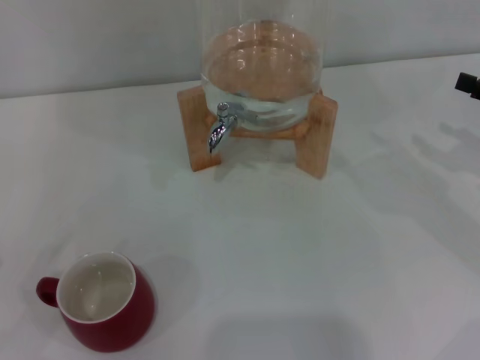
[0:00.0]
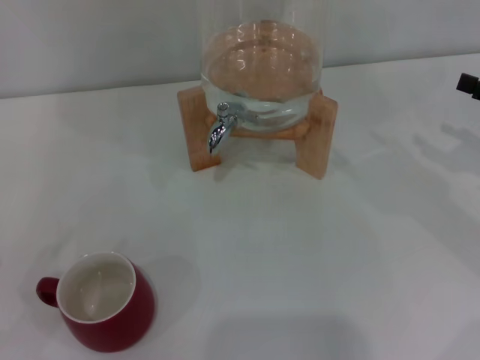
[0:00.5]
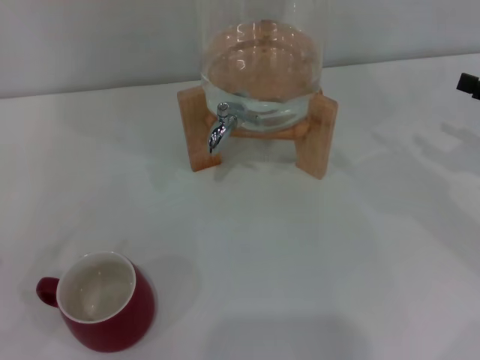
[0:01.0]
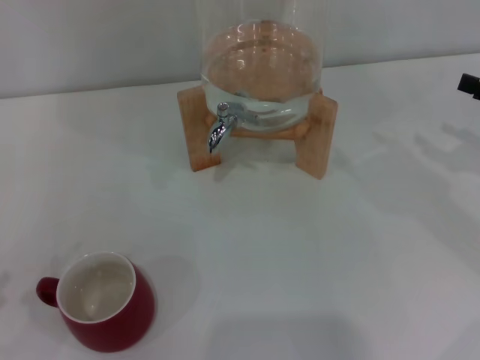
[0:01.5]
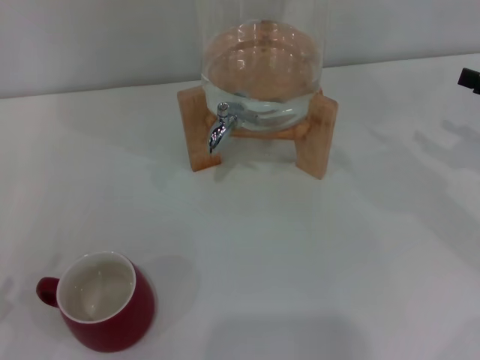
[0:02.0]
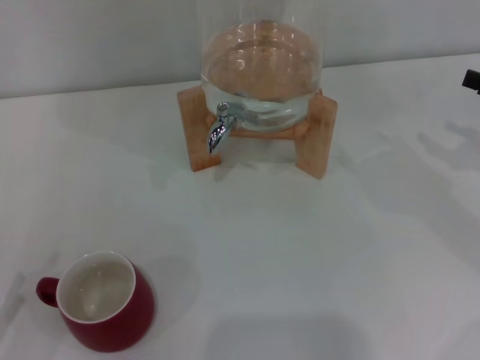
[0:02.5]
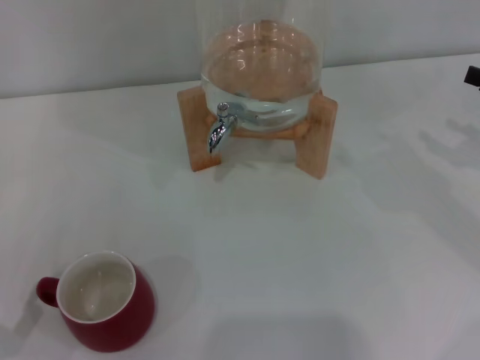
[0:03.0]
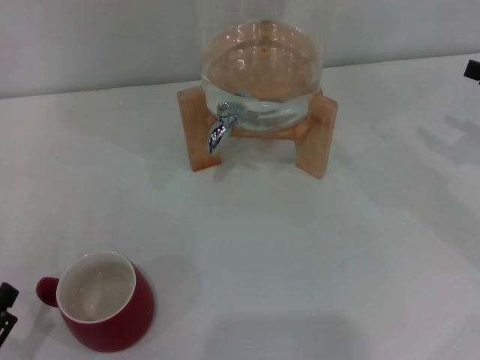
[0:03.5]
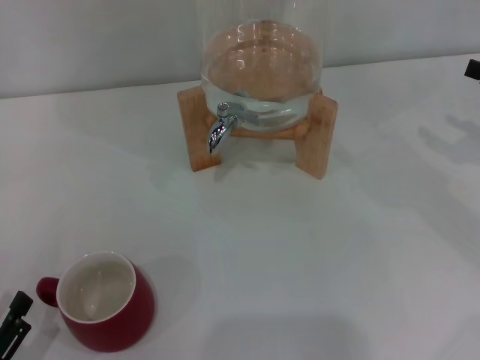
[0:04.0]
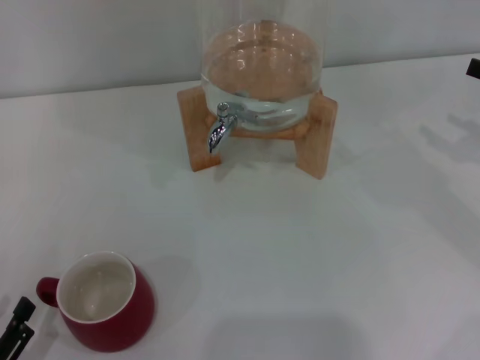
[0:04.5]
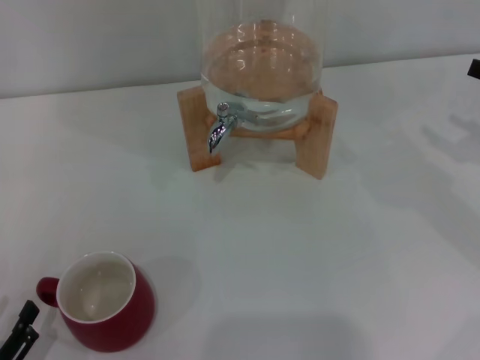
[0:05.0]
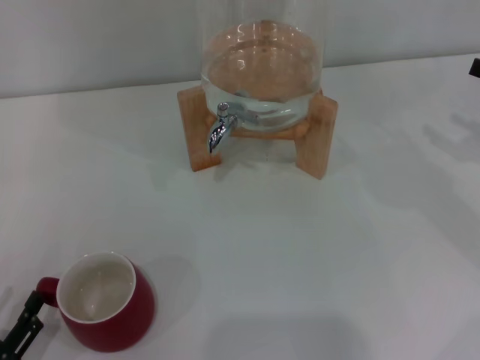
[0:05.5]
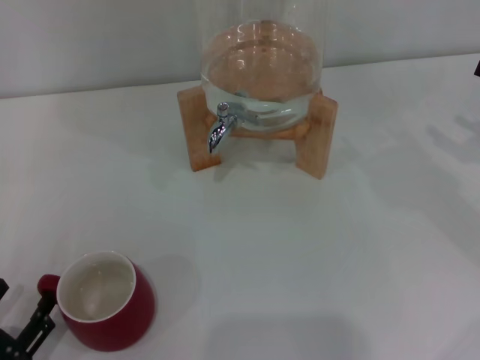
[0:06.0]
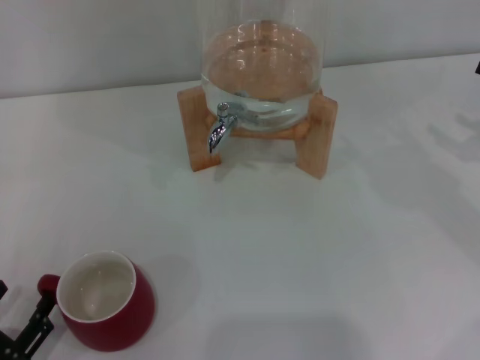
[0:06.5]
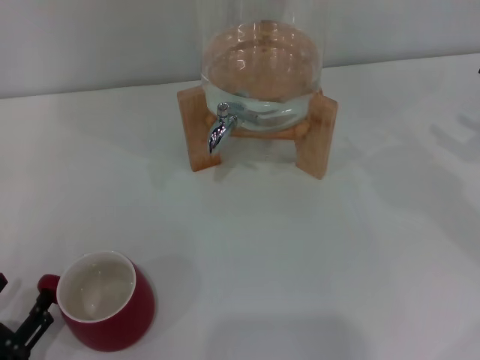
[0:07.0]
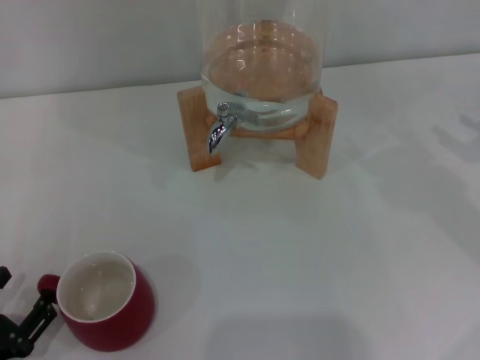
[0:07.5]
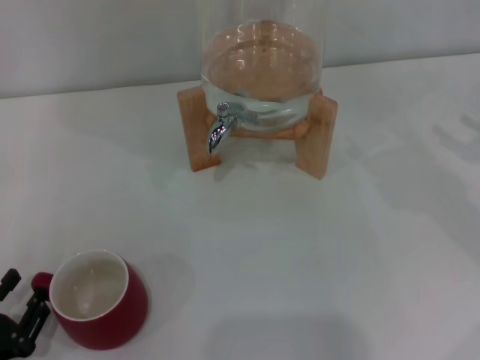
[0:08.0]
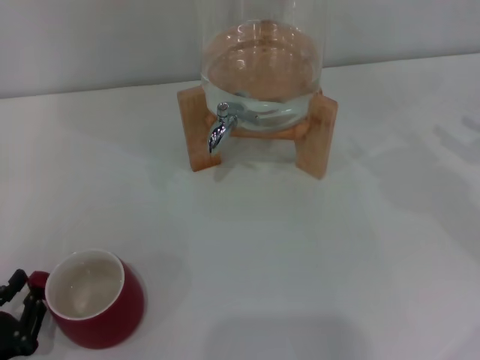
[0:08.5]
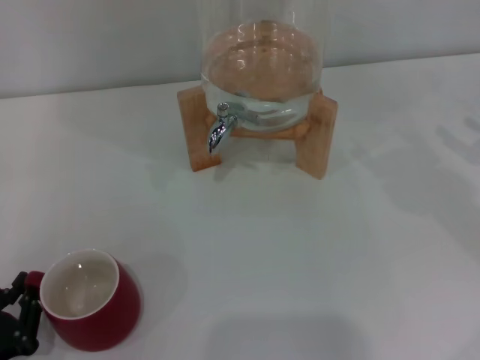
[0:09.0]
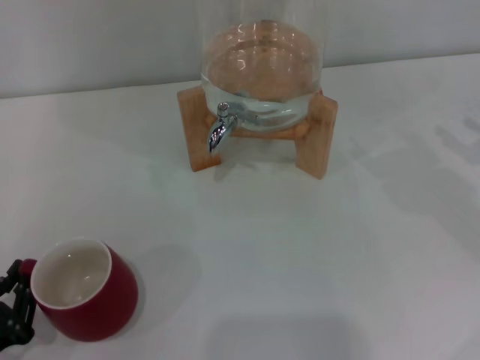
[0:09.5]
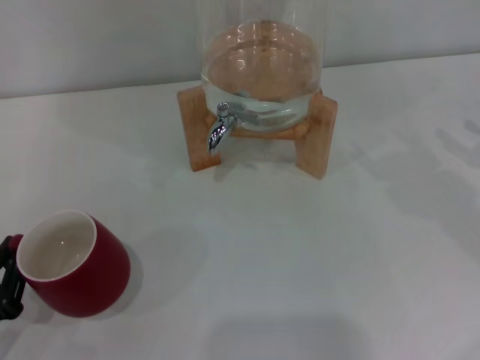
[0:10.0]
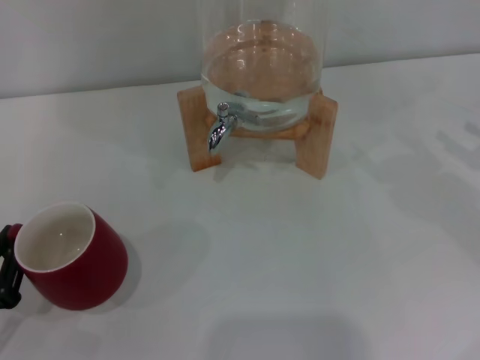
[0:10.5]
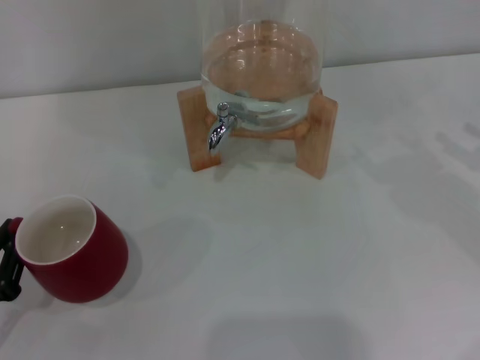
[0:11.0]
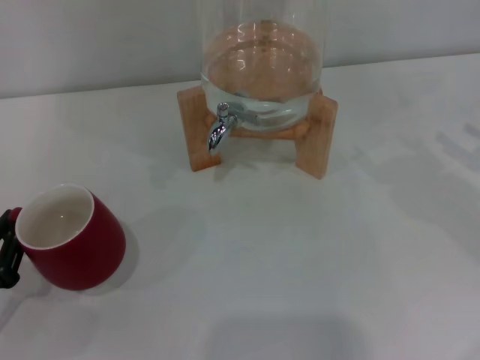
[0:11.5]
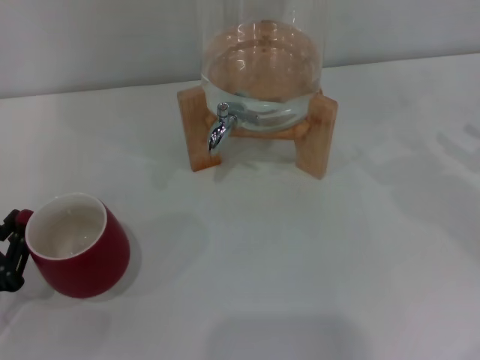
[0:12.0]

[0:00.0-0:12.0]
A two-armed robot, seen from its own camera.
Task of the whole recording: the left gripper pick up the red cup and place it horizontally under the faucet, the right gripper turn on the faucet to fill the cup, and then turn off the faucet.
0:02.0 to 0:04.0: The left gripper moves to the right, about 5 cm.
0:04.0 to 0:08.0: The grippers move only a little.
0:08.0 to 0:10.0: The left gripper closes its fingers.
0:10.0 to 0:12.0: The grippers stay close to where they were, moving slightly.

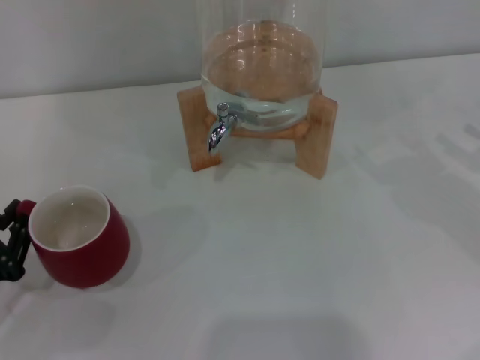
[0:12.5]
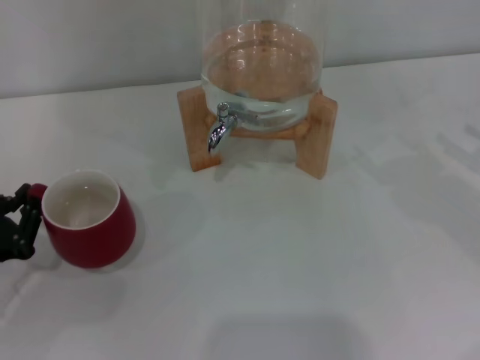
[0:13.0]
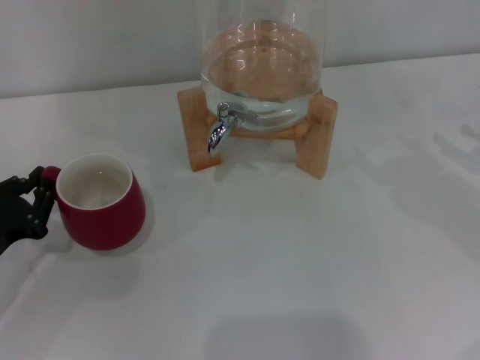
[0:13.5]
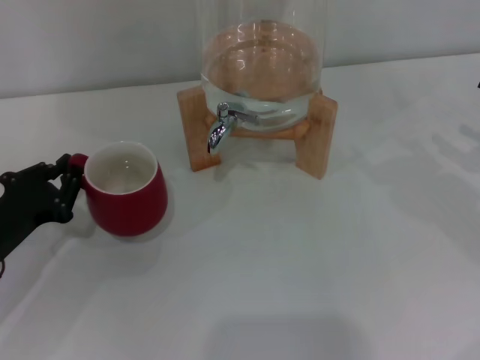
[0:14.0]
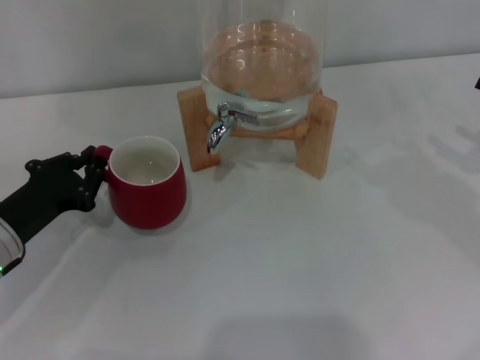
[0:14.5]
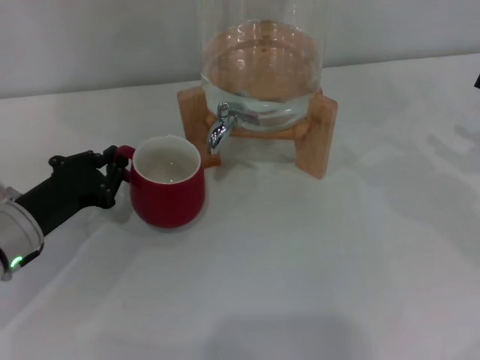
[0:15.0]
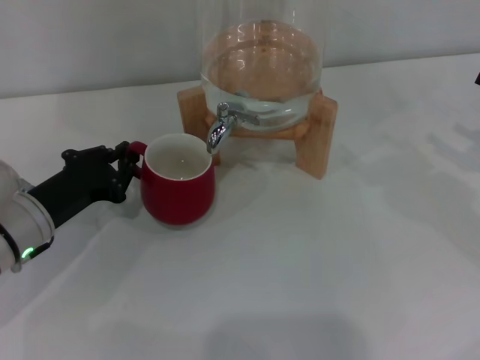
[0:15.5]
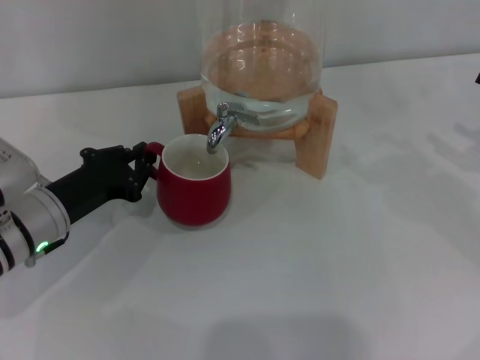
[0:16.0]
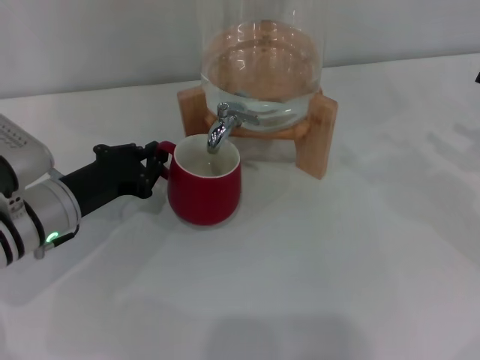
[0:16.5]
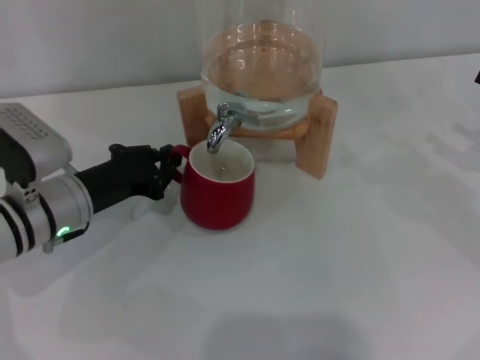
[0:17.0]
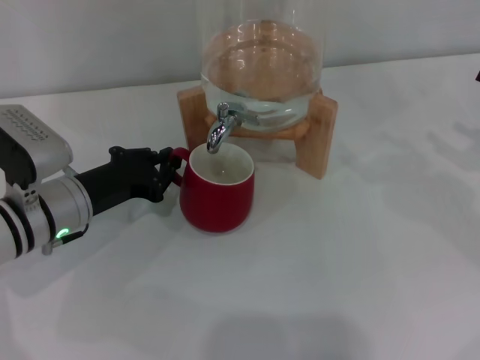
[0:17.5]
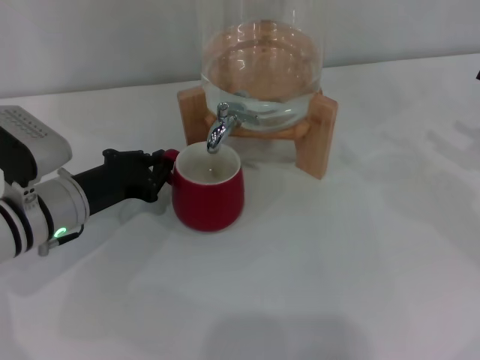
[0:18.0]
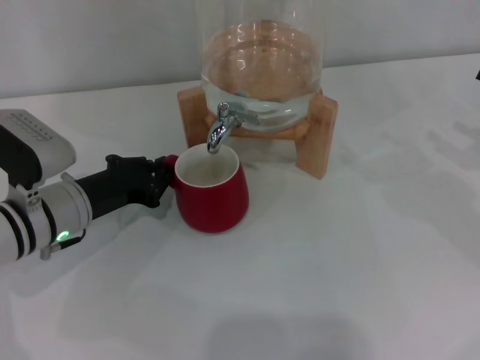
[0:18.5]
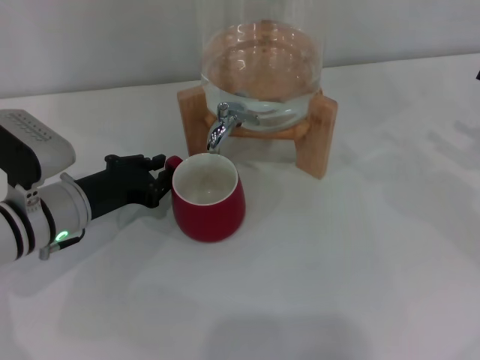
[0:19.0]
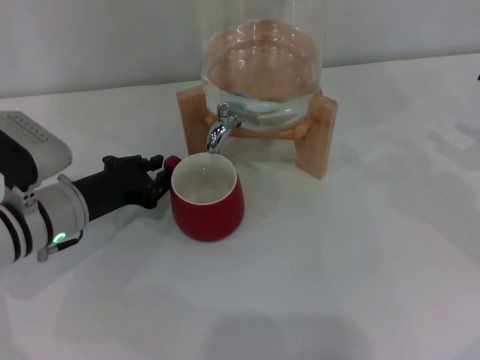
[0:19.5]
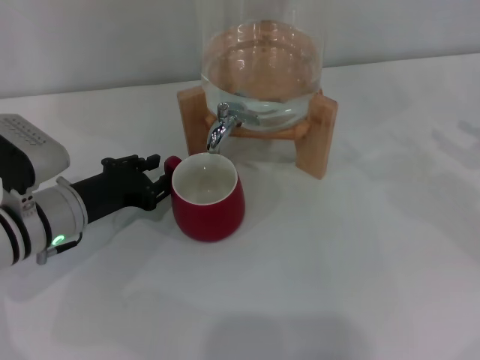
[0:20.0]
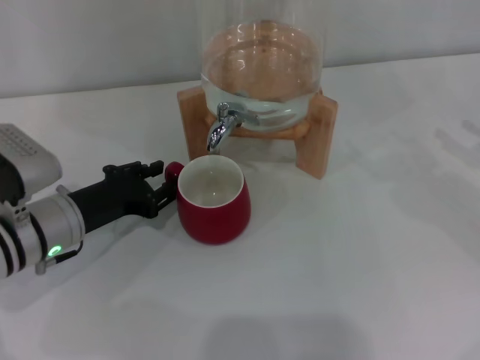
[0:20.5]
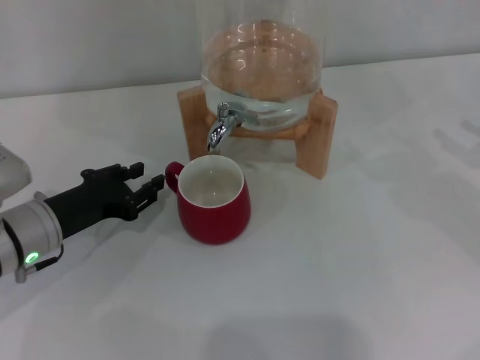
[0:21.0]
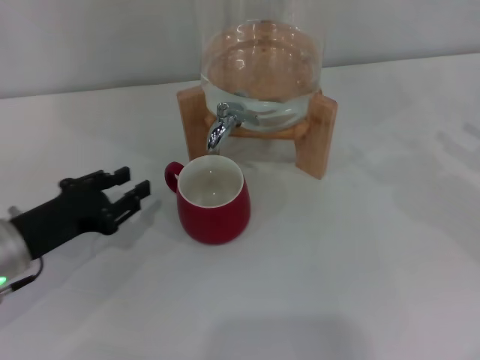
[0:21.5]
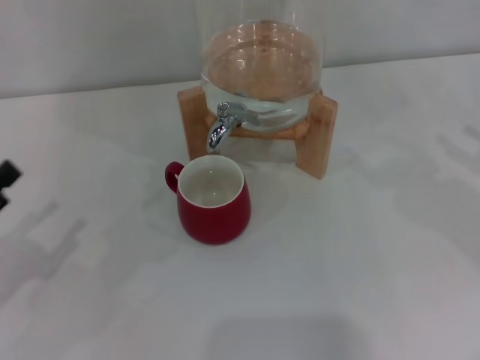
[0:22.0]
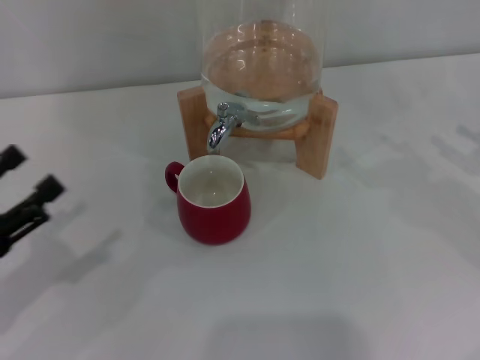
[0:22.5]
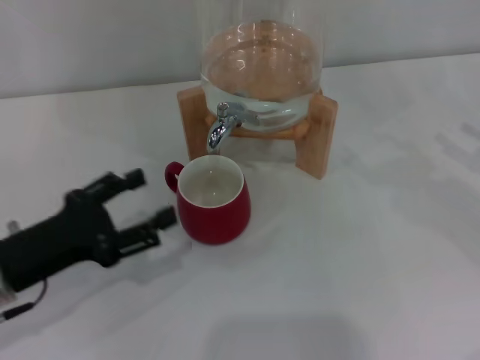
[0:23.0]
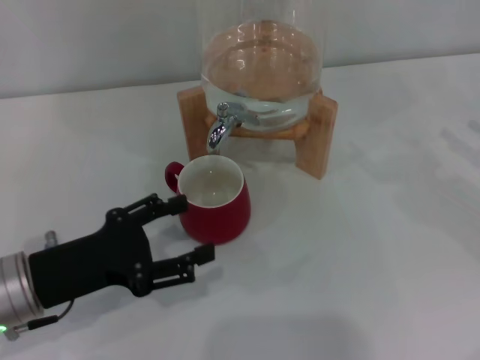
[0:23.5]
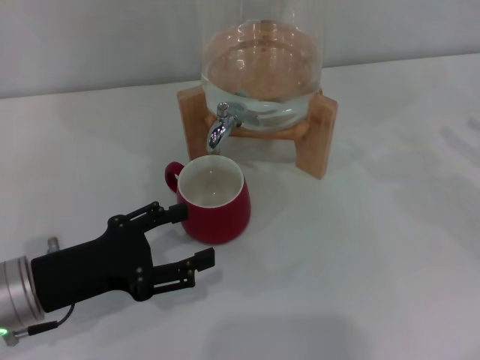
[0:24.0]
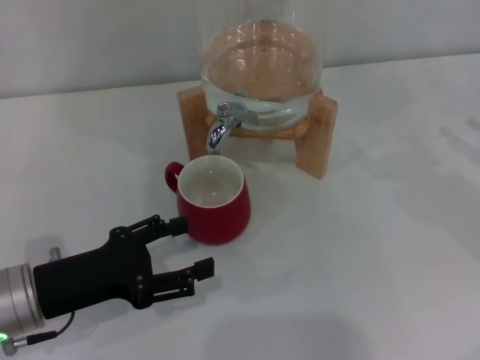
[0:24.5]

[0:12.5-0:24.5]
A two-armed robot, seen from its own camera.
Task of the whole recording: the left gripper pick up the red cup and place it horizontally under the faucet, the right gripper turn on the faucet to fill the cup, and then turn off the faucet.
0:12.5 to 0:14.5: The left gripper is displaced forward and to the right by roughly 10 cm.
0:14.5 to 0:16.5: The left gripper is displaced to the right by about 5 cm.
0:16.5 to 0:18.5: The grippers stay close to where they were, moving slightly.
0:18.5 to 0:20.5: The left gripper opens.
0:20.5 to 0:22.5: The left gripper shifts about 15 cm to the left and backward, and opens its fingers.
0:22.5 to 0:24.5: The left gripper is displaced to the right by about 10 cm.

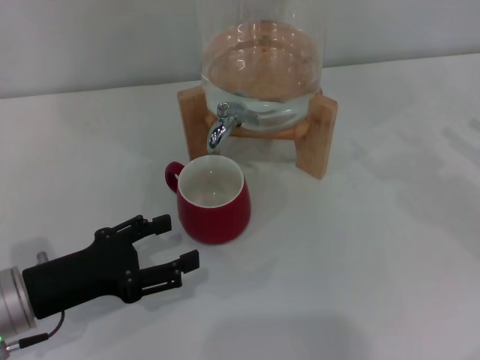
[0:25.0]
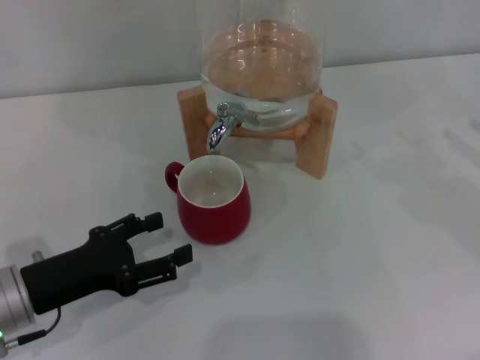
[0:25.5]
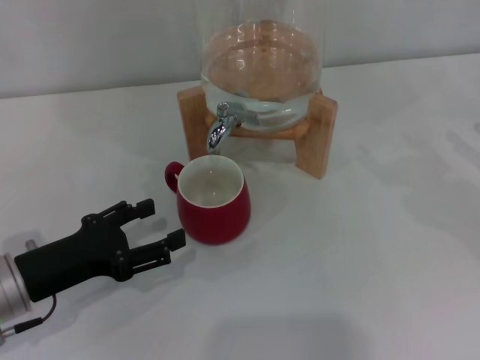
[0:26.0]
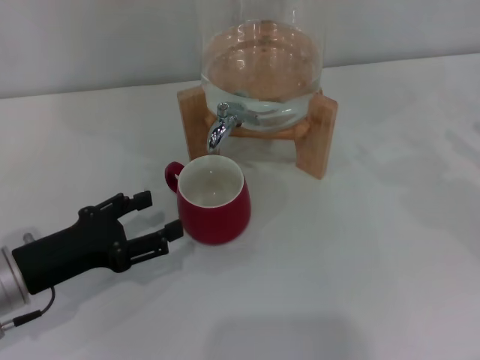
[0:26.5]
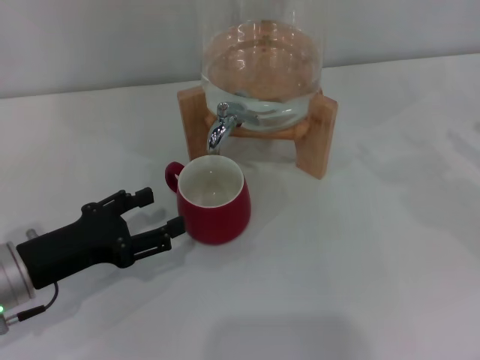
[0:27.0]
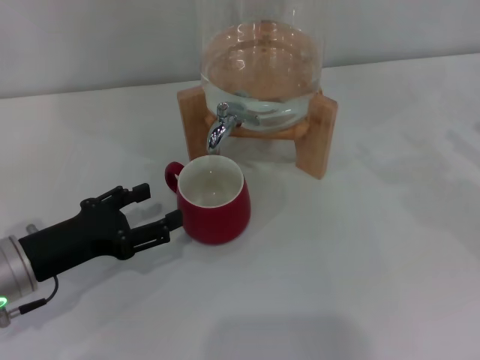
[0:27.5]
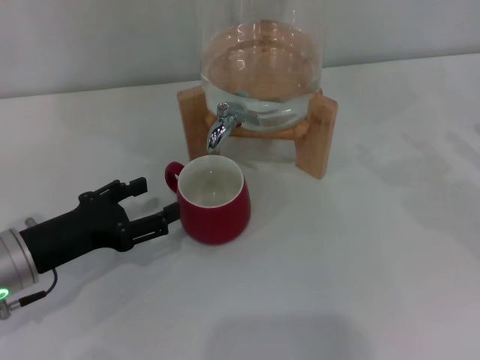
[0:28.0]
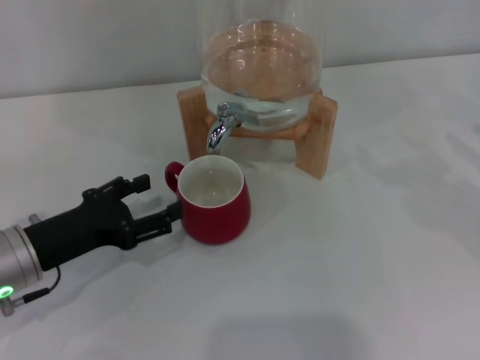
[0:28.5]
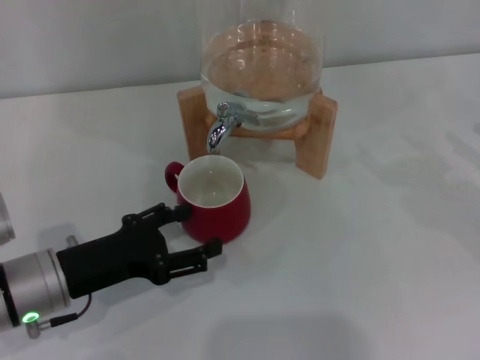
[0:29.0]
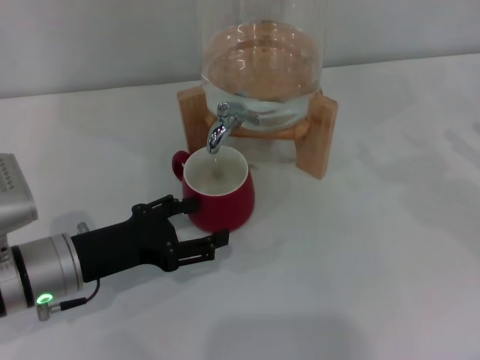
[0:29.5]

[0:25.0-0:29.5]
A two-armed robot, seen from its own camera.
Task of the whole recording: the left gripper pick up the red cup and place it horizontally under the faucet, the right gripper turn on the faucet to fill the cup, and then turn off the faucet.
0:25.0 to 0:29.5: The grippers stay close to where they were, moving slightly.
